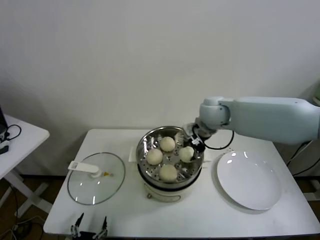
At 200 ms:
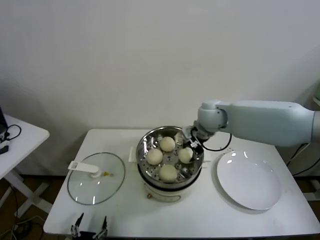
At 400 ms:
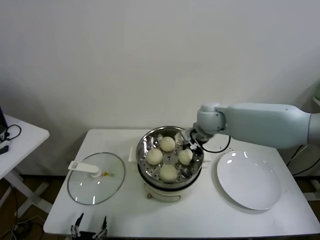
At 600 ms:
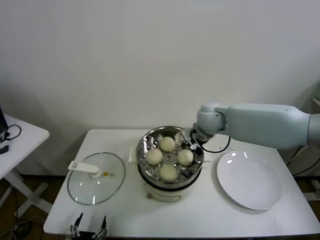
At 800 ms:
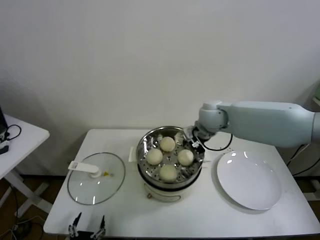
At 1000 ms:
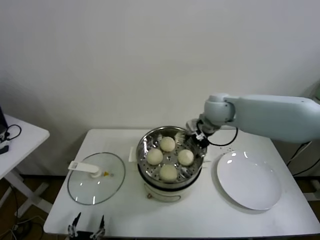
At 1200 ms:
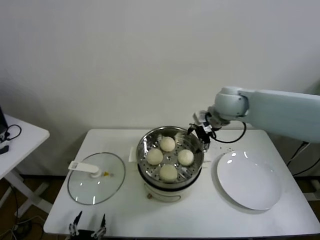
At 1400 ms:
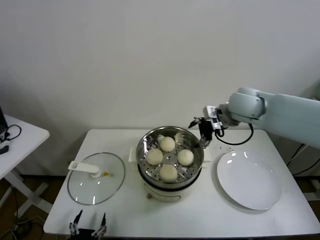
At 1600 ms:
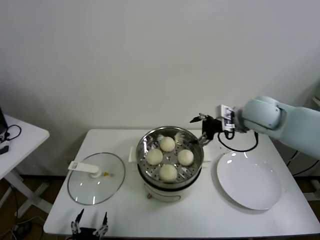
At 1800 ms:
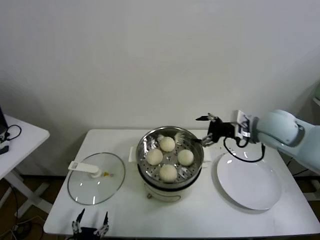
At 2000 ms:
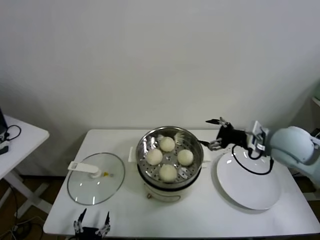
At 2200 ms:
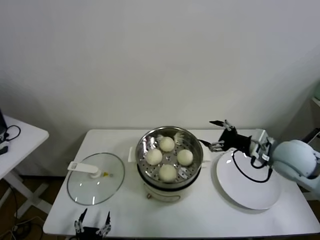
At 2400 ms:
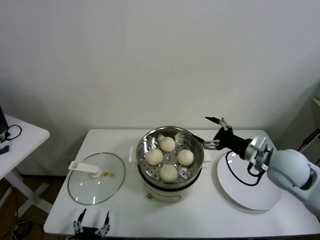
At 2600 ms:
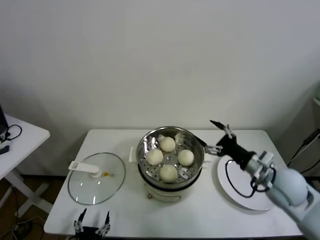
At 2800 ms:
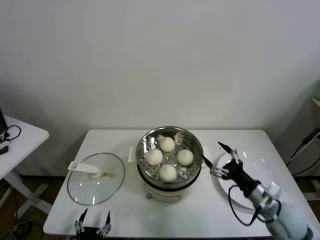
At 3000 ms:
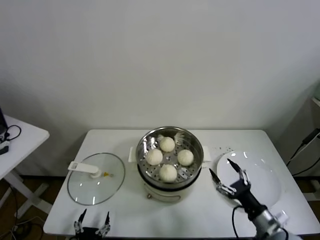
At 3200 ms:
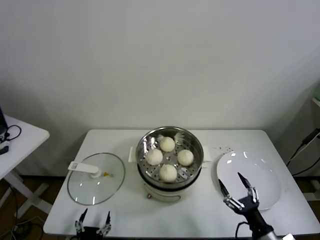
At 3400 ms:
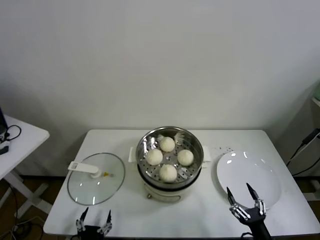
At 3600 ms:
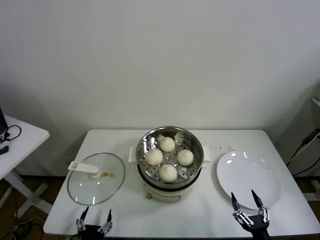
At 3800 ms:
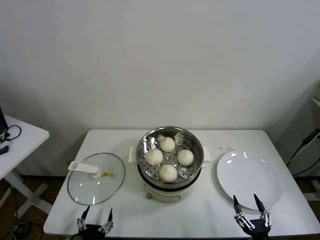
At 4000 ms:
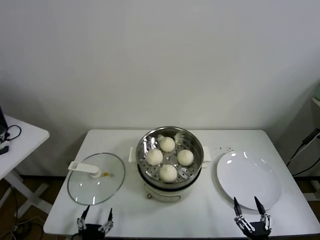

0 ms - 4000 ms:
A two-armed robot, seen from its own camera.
Task of the whole recording: take steamed baozi put them in steamer.
0 ms - 1400 ms: The right gripper moves to the right, roughly 5 cm, and opens.
1400 ms - 2600 ms: The right gripper is displaced backward, downward and to the right by some 25 cm.
2600 ms - 4000 ms: The right gripper is displaced backward and downward by about 35 cm.

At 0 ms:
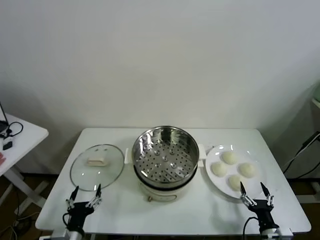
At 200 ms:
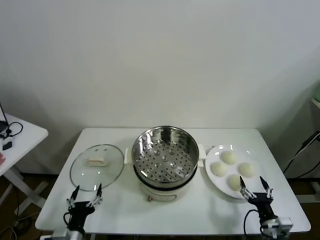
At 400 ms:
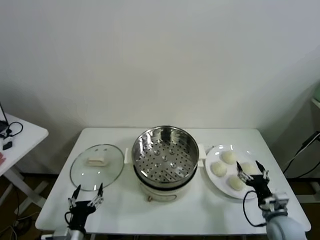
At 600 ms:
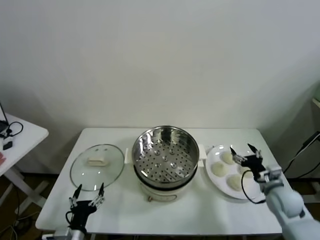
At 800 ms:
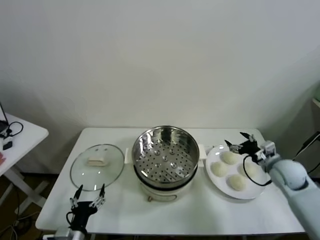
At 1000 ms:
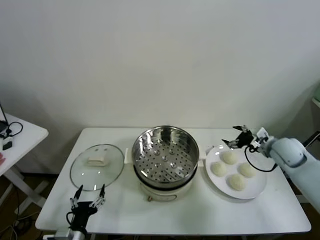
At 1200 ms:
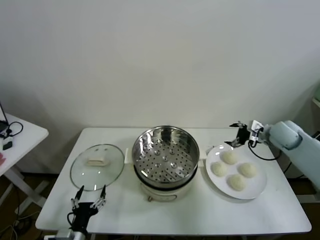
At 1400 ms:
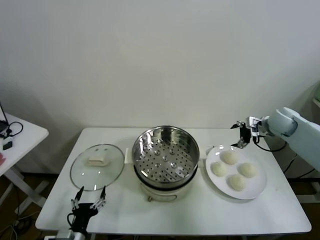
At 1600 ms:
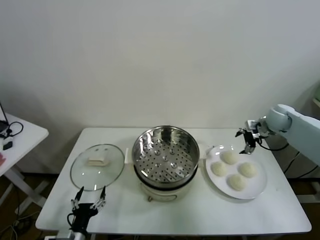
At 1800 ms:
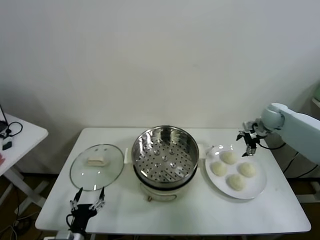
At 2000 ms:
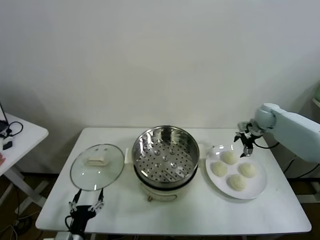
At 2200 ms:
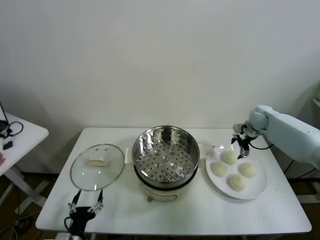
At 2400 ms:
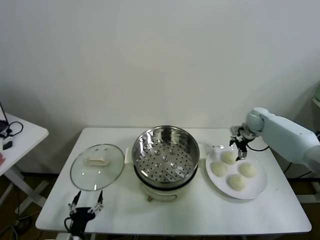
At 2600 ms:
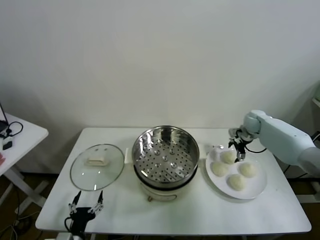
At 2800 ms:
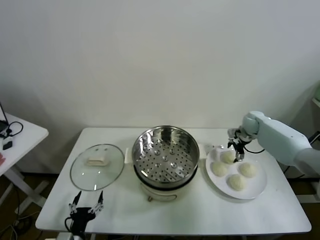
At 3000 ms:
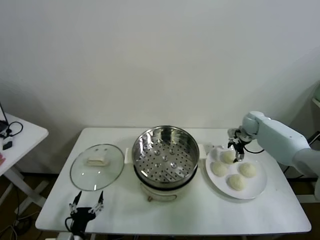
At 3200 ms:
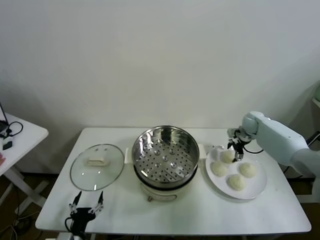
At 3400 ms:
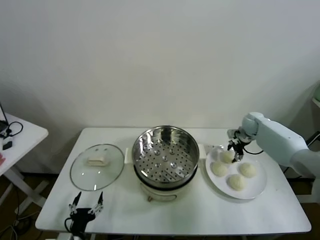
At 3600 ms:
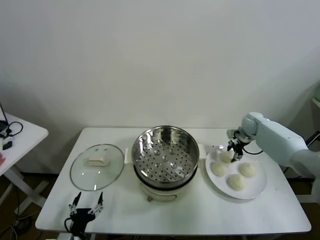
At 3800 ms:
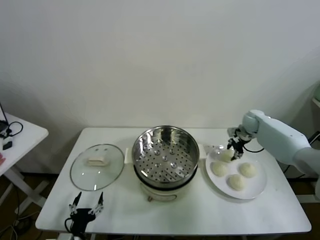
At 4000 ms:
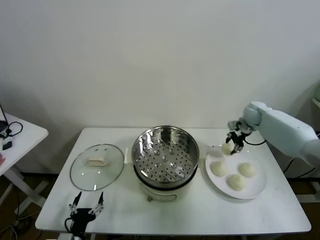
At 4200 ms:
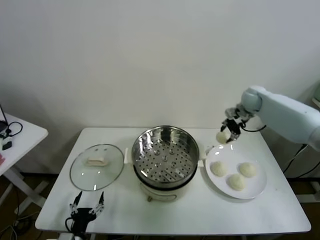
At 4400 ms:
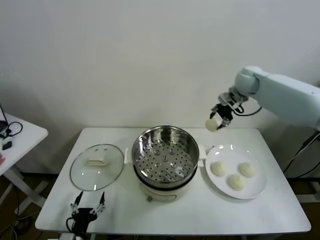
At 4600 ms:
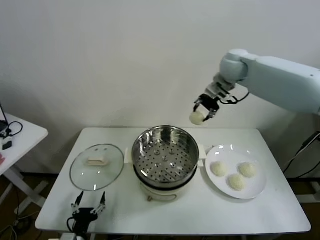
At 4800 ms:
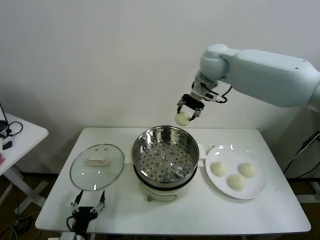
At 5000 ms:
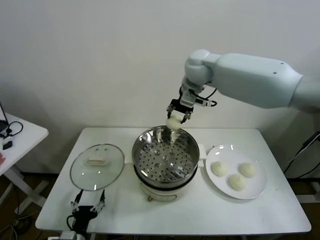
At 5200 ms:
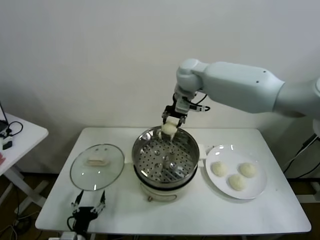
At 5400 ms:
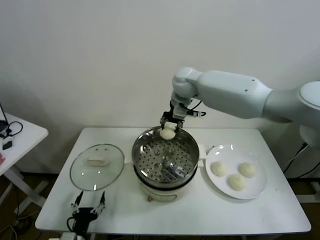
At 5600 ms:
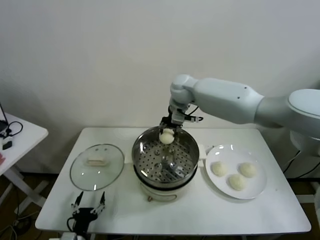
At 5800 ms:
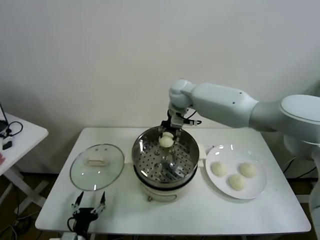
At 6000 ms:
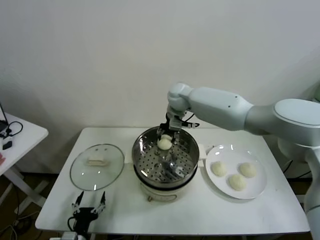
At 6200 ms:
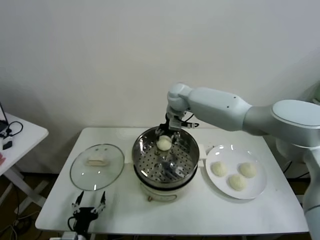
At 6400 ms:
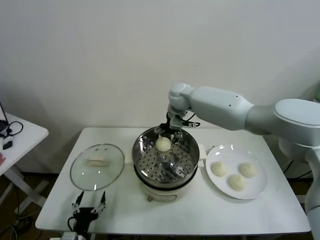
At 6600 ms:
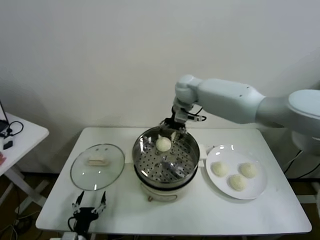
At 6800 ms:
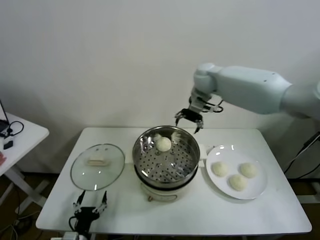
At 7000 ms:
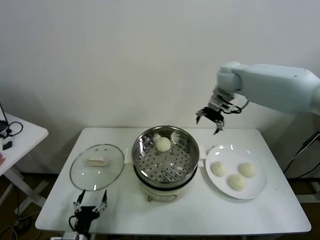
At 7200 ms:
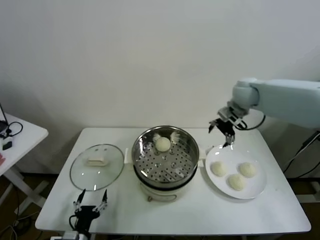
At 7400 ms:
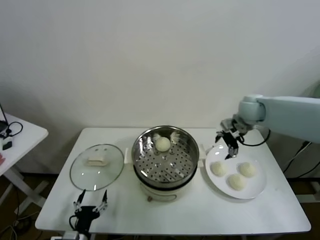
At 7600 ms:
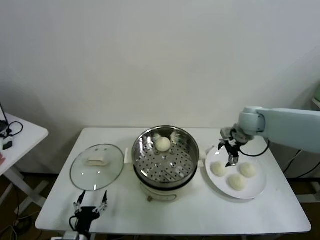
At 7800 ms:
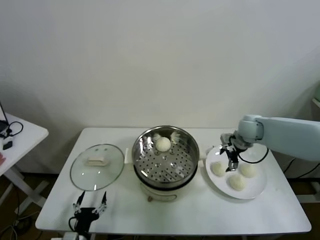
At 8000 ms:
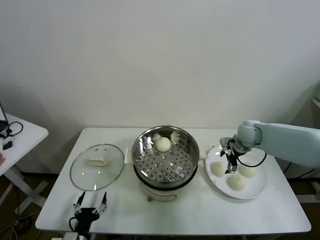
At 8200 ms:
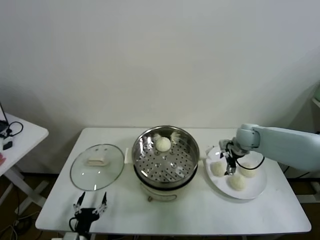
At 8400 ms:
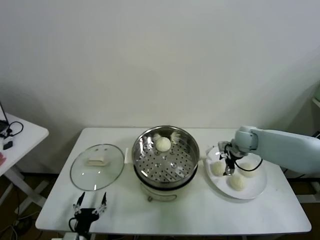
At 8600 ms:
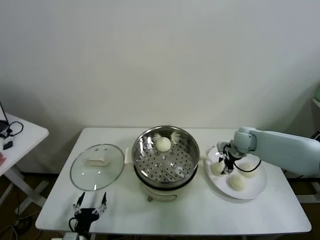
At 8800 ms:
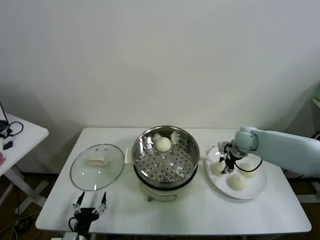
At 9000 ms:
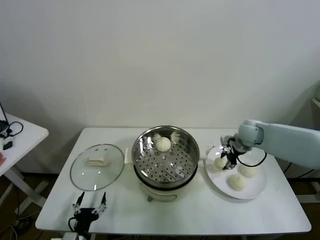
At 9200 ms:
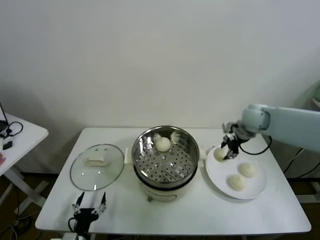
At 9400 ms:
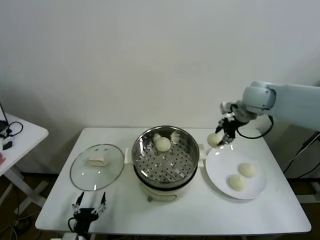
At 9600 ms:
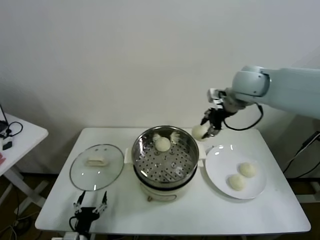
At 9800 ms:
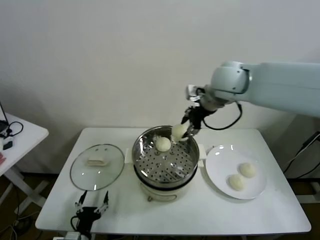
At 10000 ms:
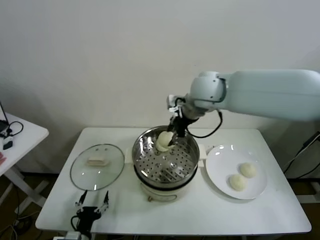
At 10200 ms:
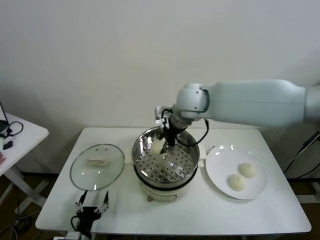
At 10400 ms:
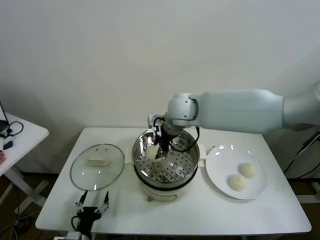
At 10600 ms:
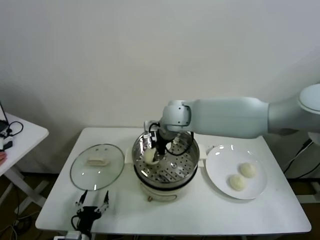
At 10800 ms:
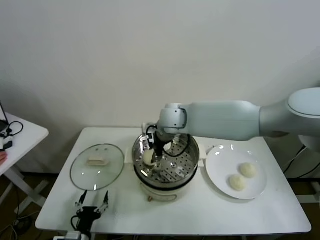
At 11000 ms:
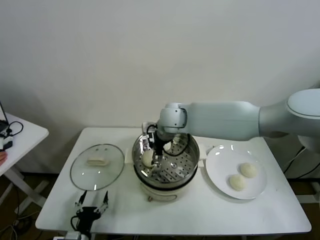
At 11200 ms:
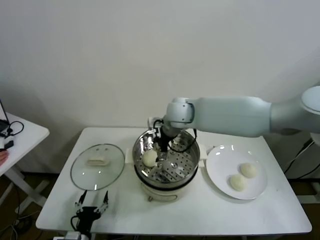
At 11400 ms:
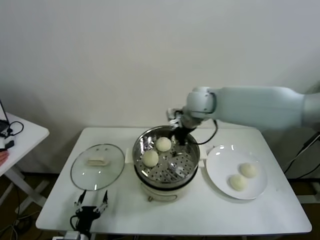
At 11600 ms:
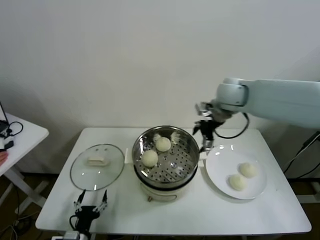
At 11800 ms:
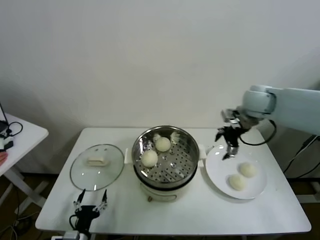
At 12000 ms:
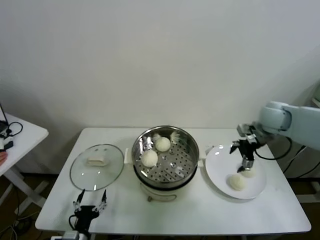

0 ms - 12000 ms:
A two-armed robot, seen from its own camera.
Task of the whole recording: take steamed baozi put them in steamer.
Step, 0 ms - 3400 ms: Grasp the baozi in the plate with right gripper.
Step, 3600 ms - 6200 ms: Place the baozi on the steamer with right gripper.
Step, 6400 ms - 8400 ms: Grasp the baozi in the plate with right gripper.
Step, 8800 ms - 11000 ms: Place the baozi on the steamer with right gripper.
1600 ms - 3000 ms: The right gripper goes about 10 cm downward and forward.
3000 ms - 4400 ms: The right gripper is displaced upward and to the left by about 25 cm, and closes its fingers.
4400 ms - 6000 ms: The right gripper heads to the left and downward, covering some 25 cm.
6000 ms - 7600 ms: The right gripper travels to the right by some 25 cm, and opens its fingers.
7600 ms - 9000 ms: The right gripper reaches about 10 cm downward, then returns, and closes up.
9000 ms - 10400 ms: The right gripper shifts roughly 30 cm to the left and upward.
10400 ms - 12000 ms: The right gripper heads to the right, covering some 30 cm, and opens up.

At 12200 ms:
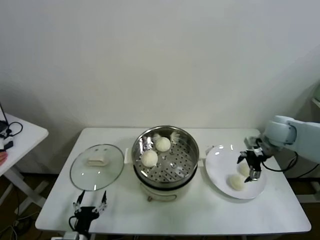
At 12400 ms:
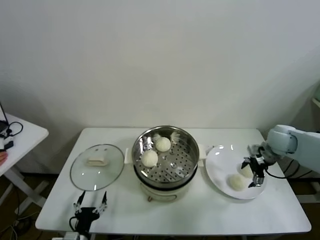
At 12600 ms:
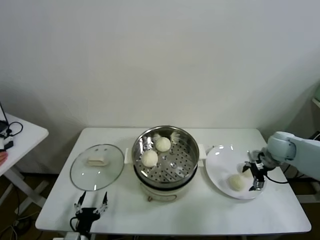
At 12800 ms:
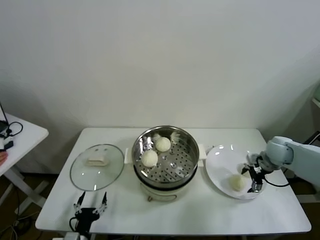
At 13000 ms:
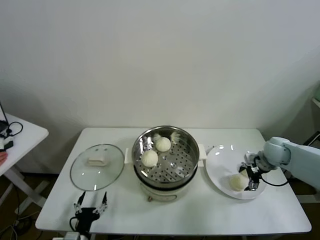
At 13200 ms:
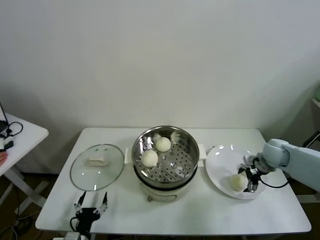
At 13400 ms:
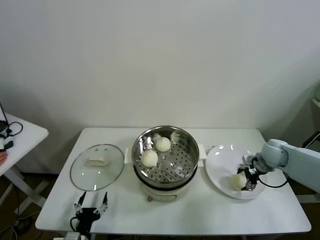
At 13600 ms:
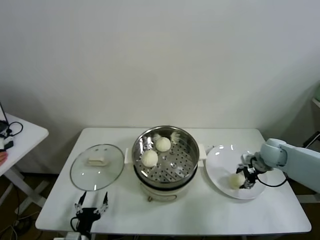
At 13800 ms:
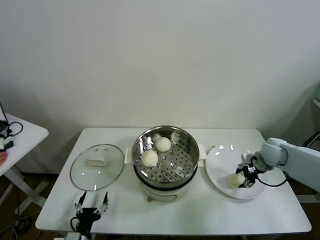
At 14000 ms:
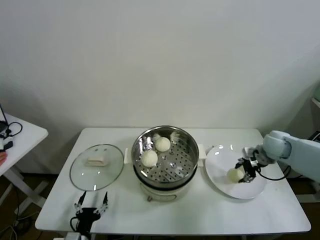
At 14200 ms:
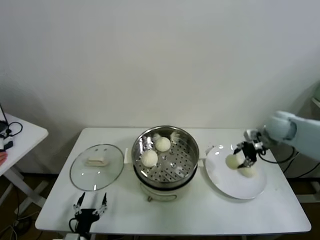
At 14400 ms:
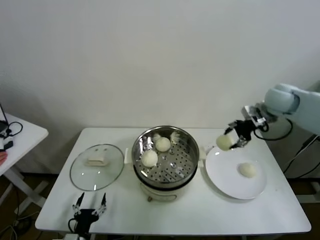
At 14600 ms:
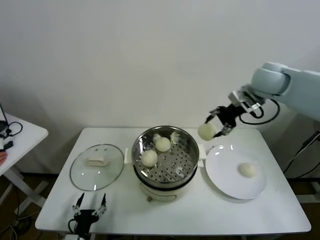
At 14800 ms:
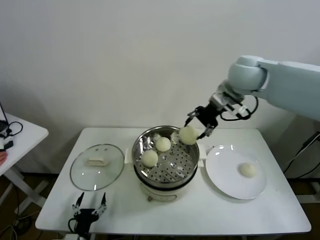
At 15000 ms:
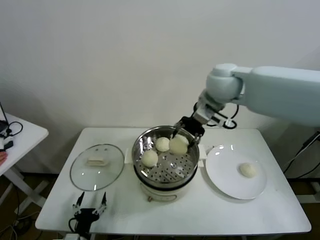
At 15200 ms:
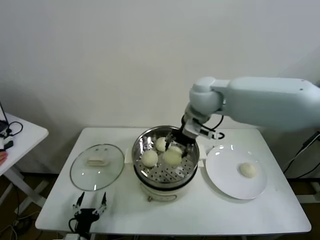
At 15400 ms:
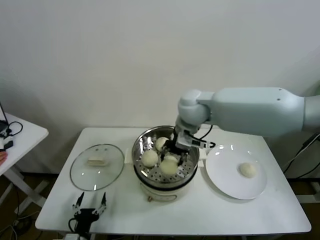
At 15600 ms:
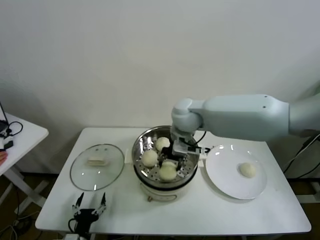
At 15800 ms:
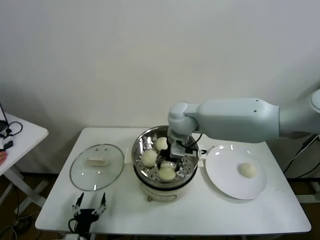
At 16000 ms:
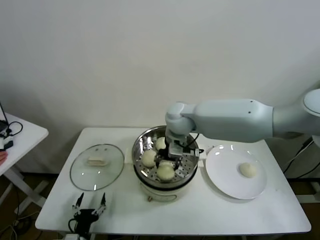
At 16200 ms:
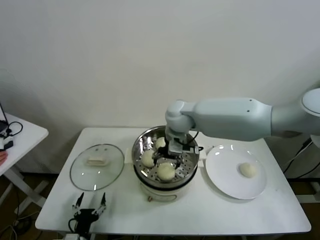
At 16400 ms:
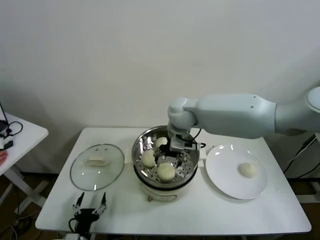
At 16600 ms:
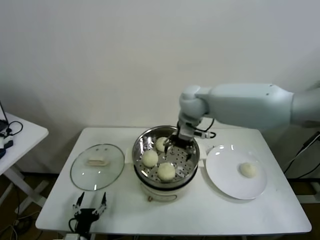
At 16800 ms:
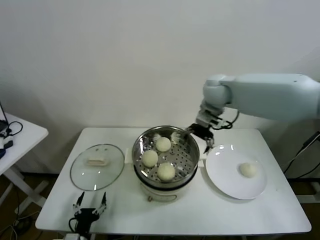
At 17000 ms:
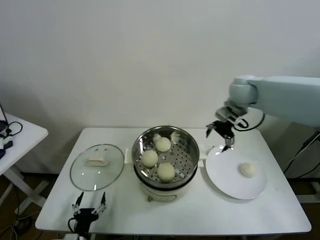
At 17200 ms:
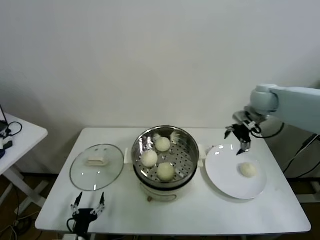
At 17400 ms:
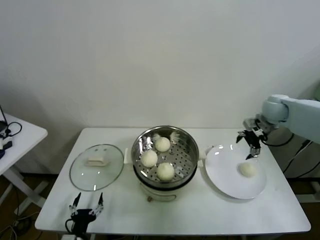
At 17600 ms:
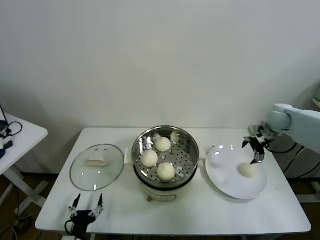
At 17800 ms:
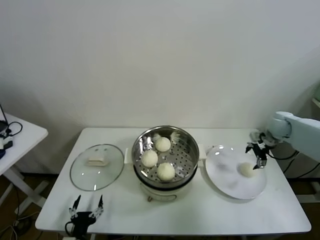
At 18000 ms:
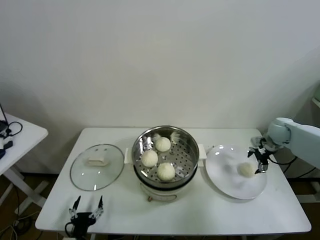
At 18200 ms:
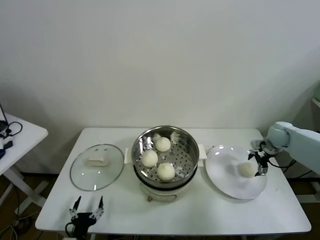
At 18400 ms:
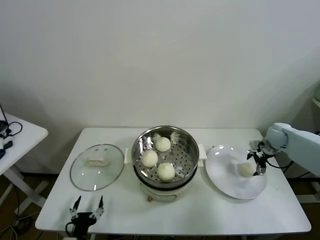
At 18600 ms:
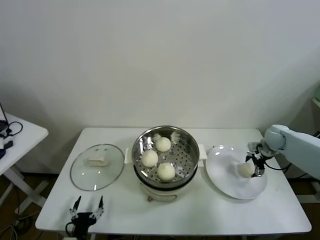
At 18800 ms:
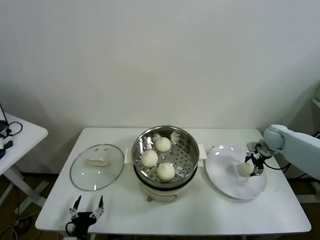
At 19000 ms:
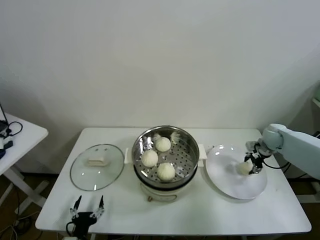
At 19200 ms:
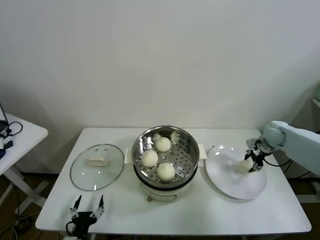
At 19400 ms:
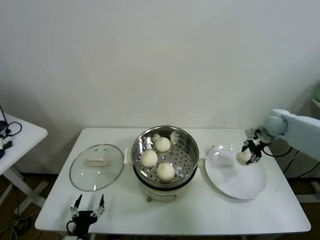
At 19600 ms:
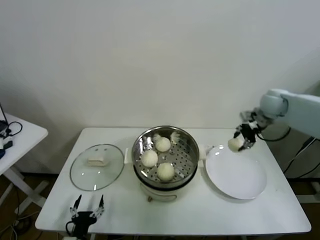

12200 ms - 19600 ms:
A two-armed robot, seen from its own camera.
Task of the whole recording: take steamed baozi put them in steamer.
Step, 12200 ms - 13400 ms: Grasp the baozi in the plate with right gripper.
Step, 13600 ms - 16000 ms: Place the baozi on the steamer with right gripper.
Step, 16400 ms - 18800 ms: Grasp the baozi in the plate with right gripper.
12200 ms - 13600 ms: The right gripper moves downward, about 10 cm, and closes.
13600 ms - 15200 ms: The right gripper heads to the left and upward, covering about 35 cm.
15200 ms - 16600 ms: The right gripper opens up.
16600 ms - 18200 ms: The right gripper moves to the right and downward, some 40 cm.
18200 ms - 19600 ms: The right gripper heads upward and to the left, covering about 15 cm, and closes its fingers.
